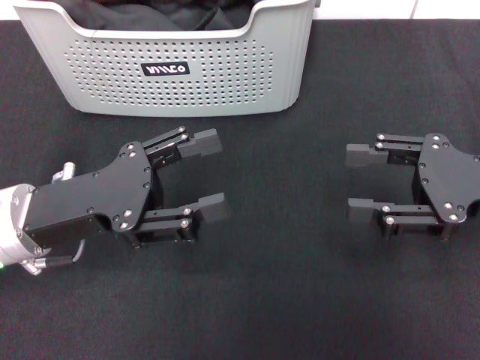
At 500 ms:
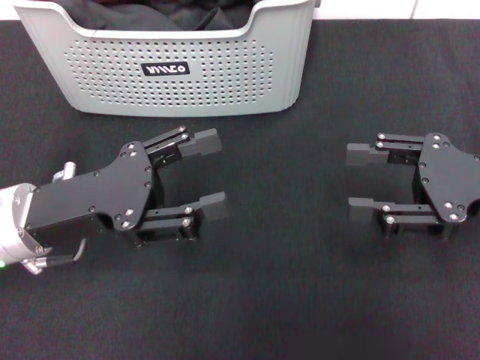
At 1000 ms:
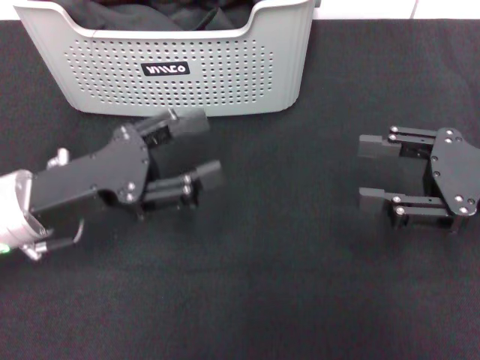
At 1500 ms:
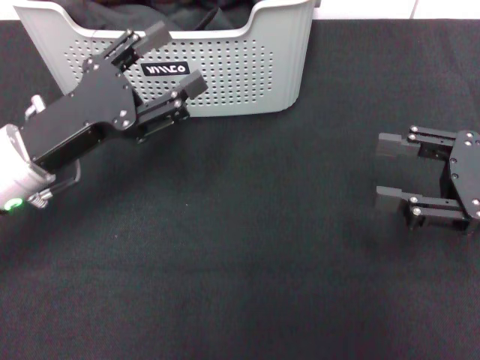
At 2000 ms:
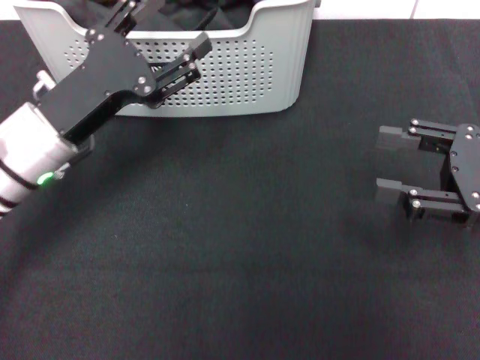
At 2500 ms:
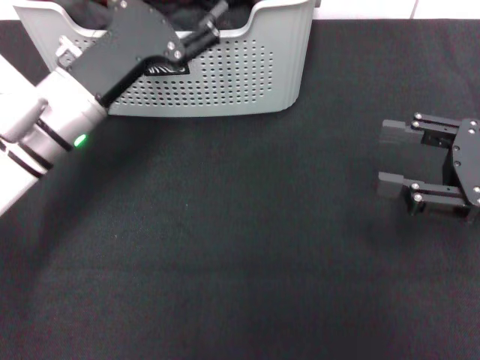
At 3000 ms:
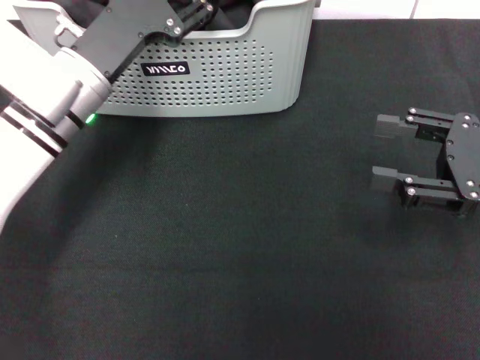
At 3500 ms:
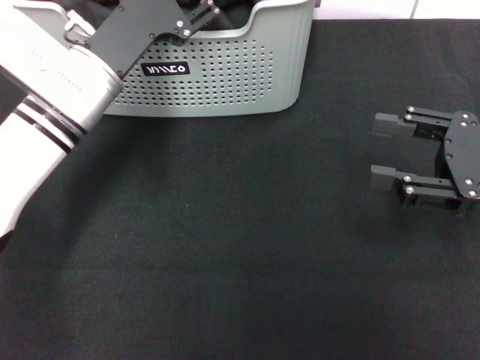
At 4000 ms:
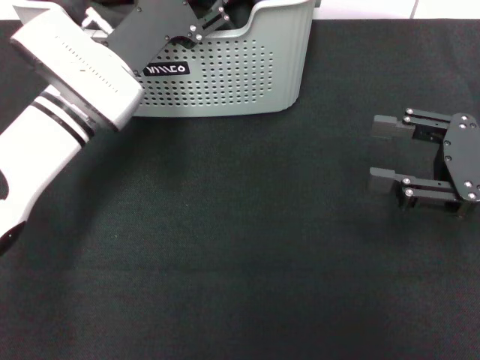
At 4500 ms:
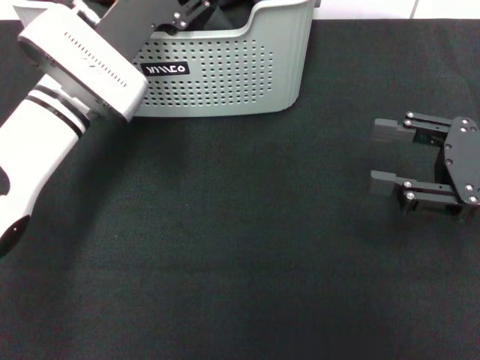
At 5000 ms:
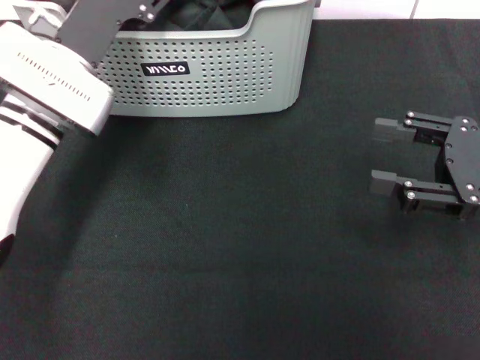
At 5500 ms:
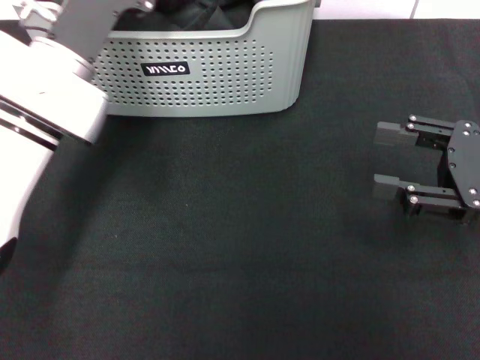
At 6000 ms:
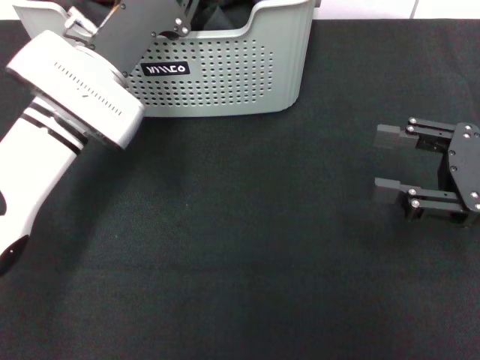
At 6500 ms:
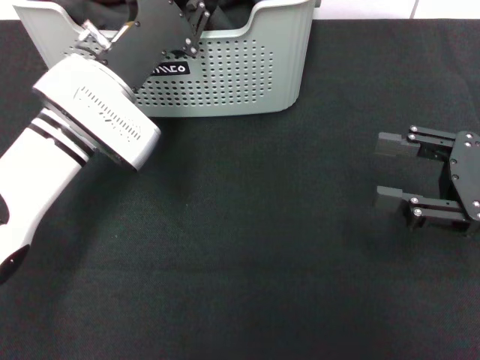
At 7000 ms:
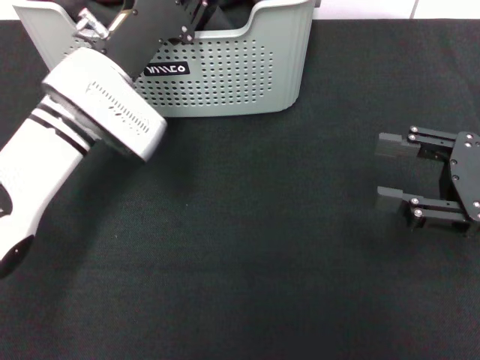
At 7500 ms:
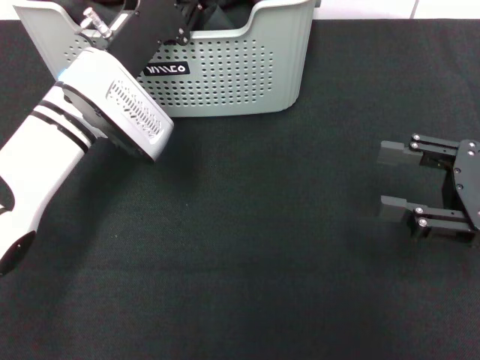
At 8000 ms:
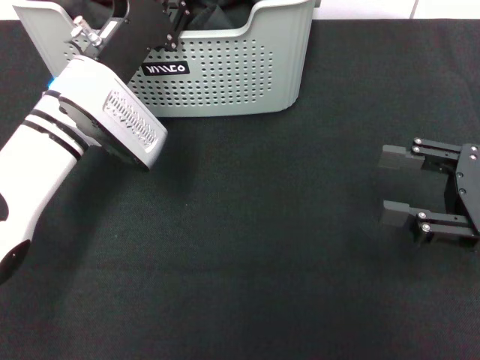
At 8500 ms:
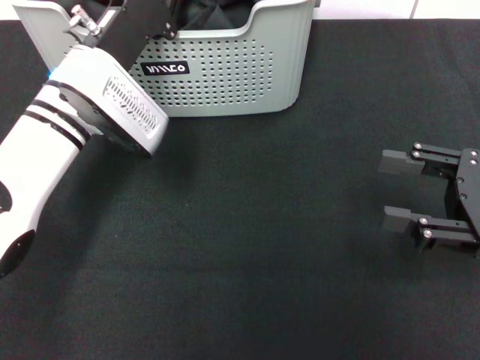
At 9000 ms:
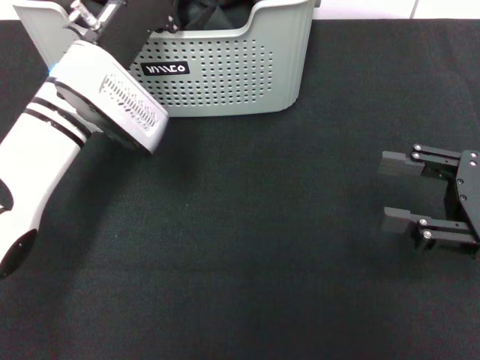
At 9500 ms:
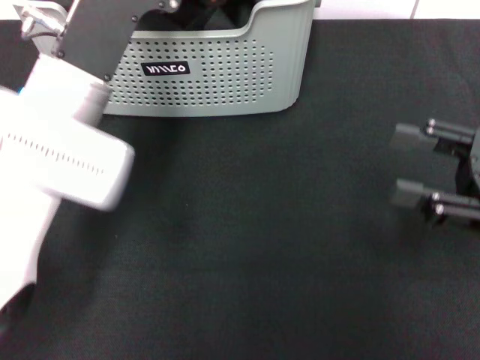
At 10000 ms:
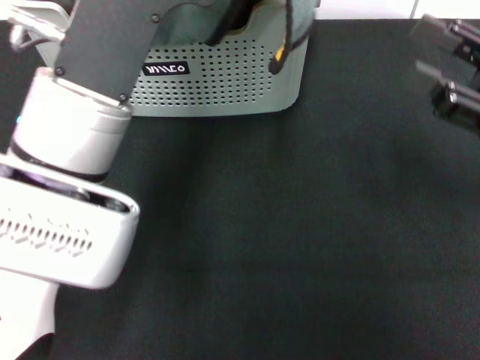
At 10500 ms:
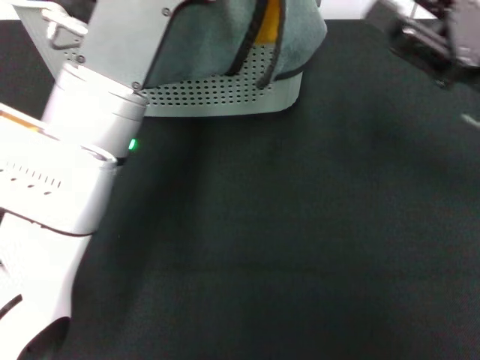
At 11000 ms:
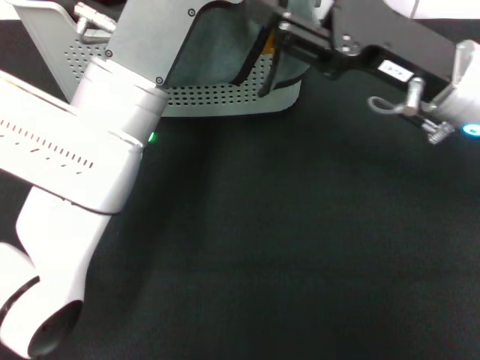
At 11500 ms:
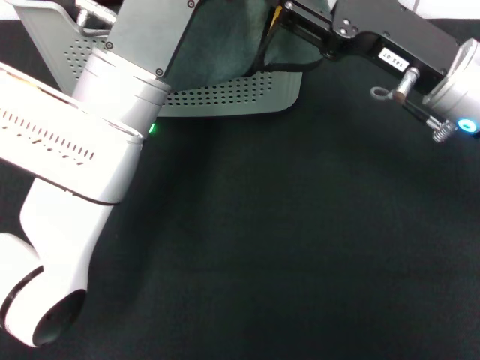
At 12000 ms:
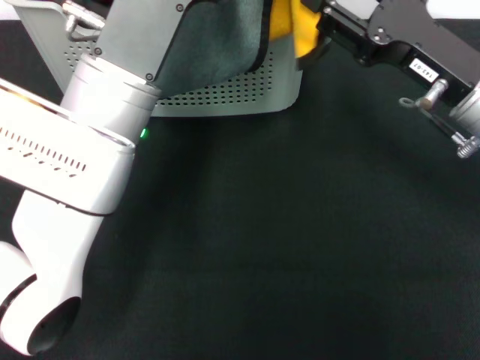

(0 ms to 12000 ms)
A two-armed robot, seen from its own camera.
Task of the whole recording: pick up the towel from the storage box and lay it flat on the black tablecloth.
Step, 0 ms - 9000 ms: Pick up a towel with the left gripper.
0 ms - 2000 ms: The left gripper moves forward, approximately 5 cm.
2000 ms - 4000 ms: The left gripper travels forward by some 5 cm.
4000 ms - 6000 ms: The left gripper closes.
8000 ms - 10000 ms: The left gripper travels backward, upward and to the right by roughly 15 cm, and closes up.
10000 ms - 12000 ms: The right gripper moves to the left, approximately 10 cm.

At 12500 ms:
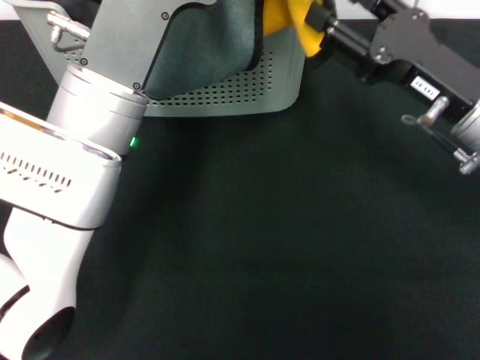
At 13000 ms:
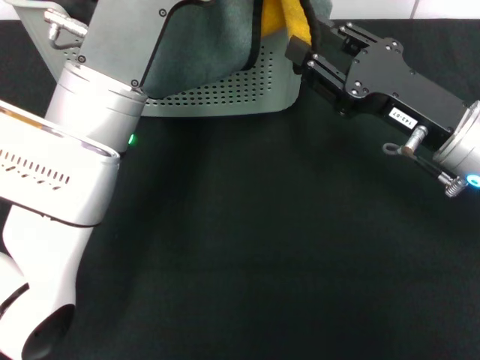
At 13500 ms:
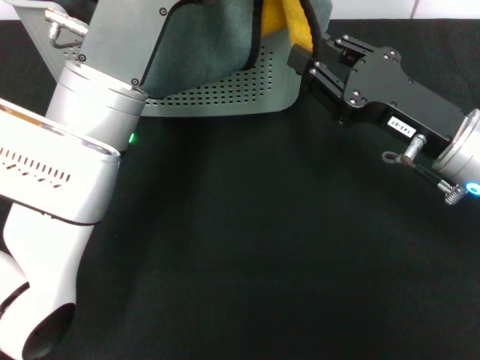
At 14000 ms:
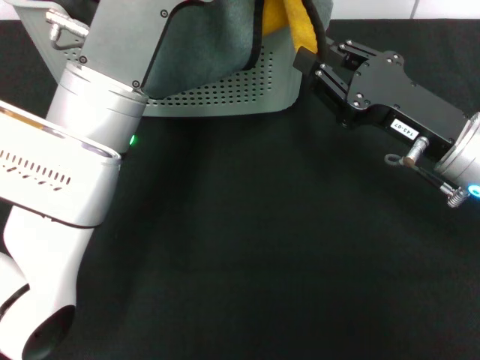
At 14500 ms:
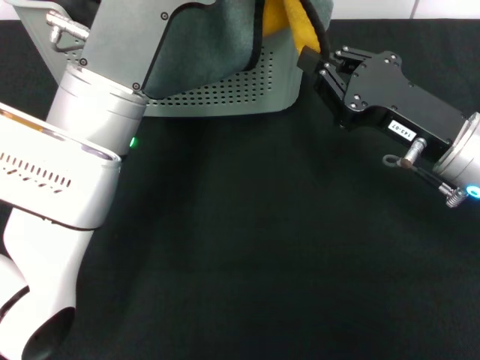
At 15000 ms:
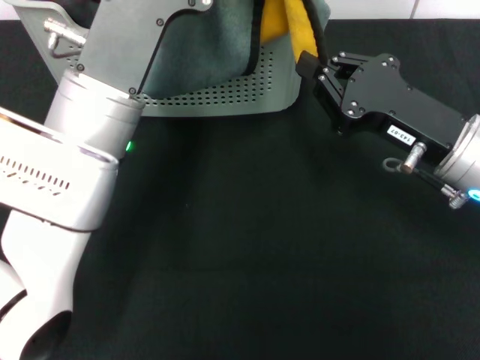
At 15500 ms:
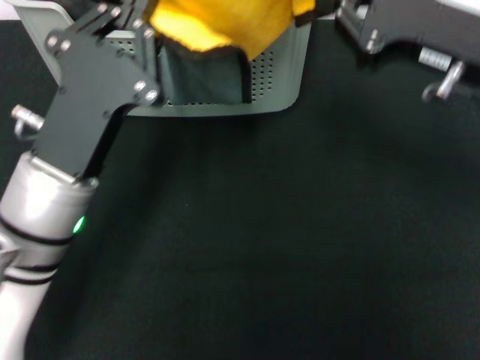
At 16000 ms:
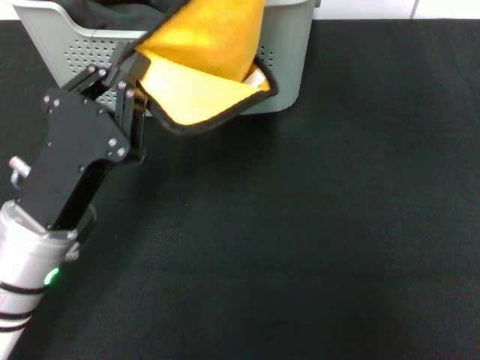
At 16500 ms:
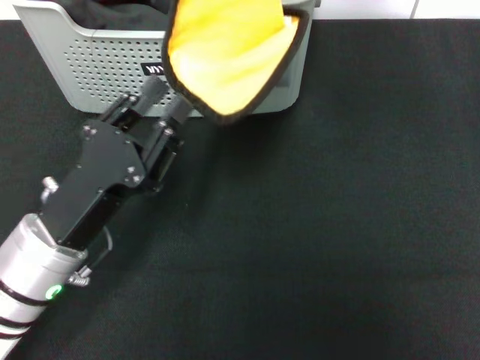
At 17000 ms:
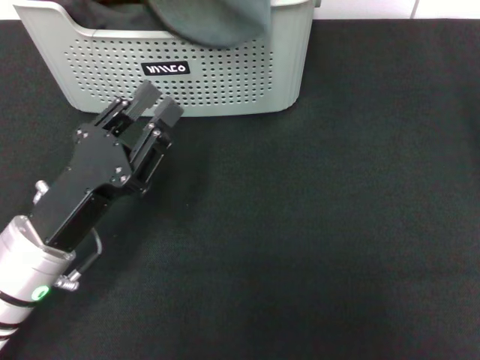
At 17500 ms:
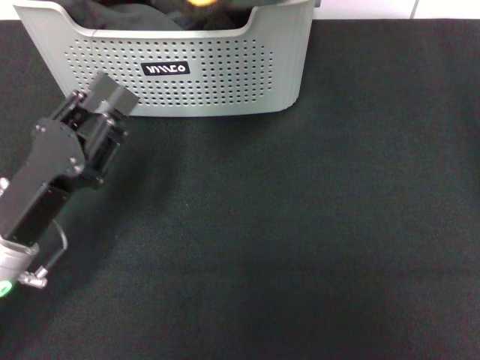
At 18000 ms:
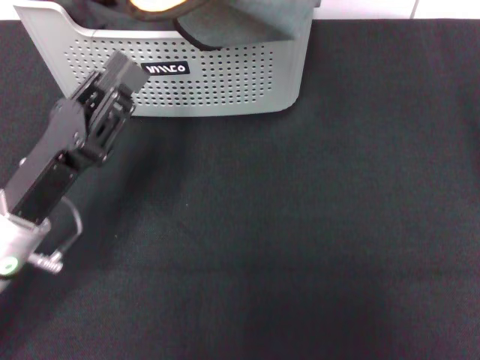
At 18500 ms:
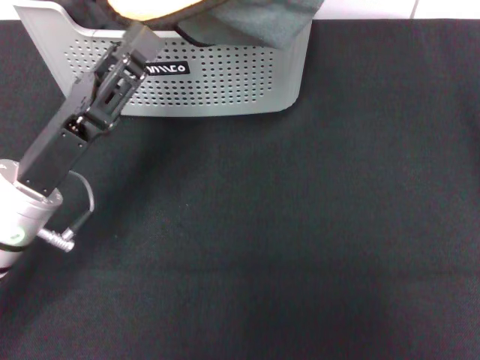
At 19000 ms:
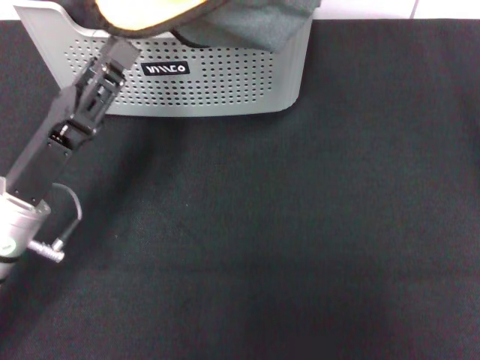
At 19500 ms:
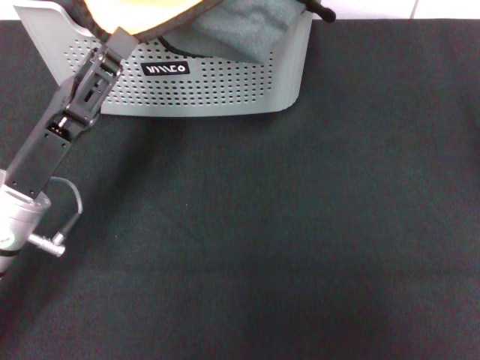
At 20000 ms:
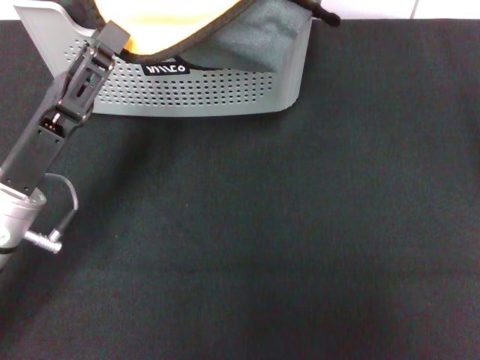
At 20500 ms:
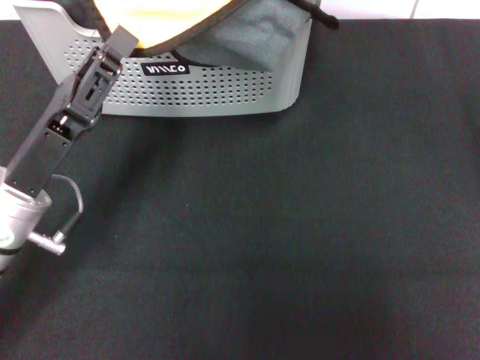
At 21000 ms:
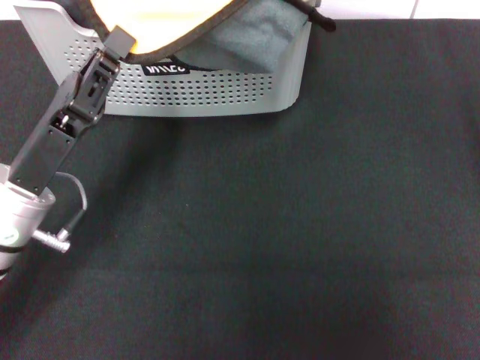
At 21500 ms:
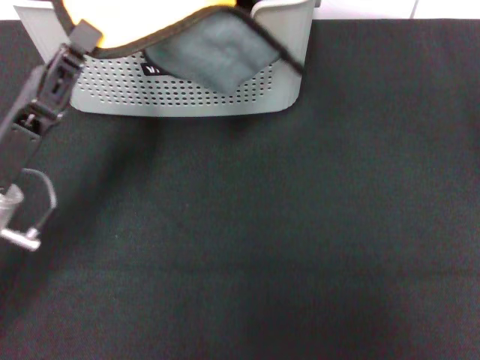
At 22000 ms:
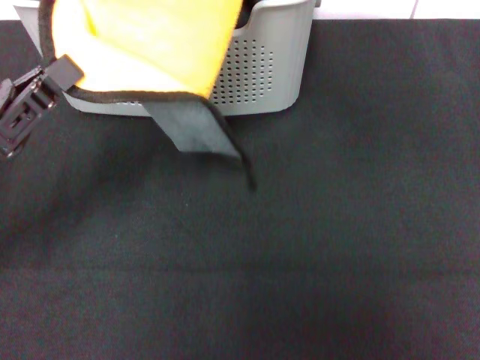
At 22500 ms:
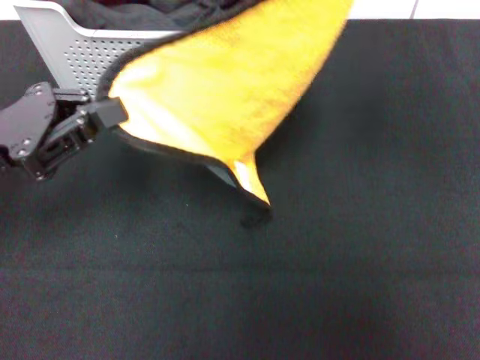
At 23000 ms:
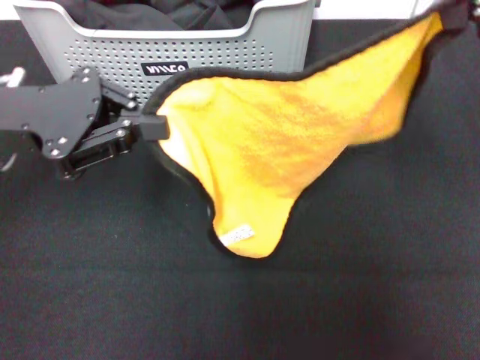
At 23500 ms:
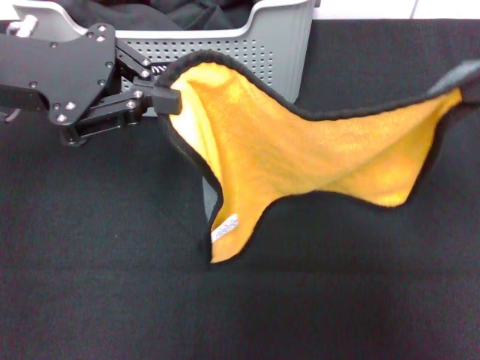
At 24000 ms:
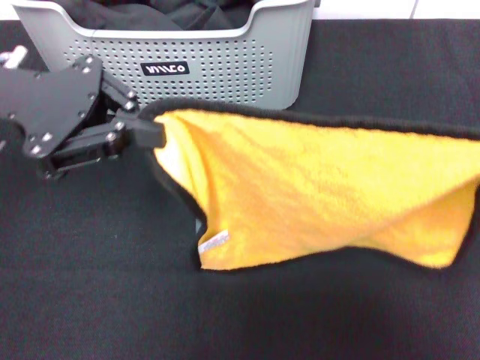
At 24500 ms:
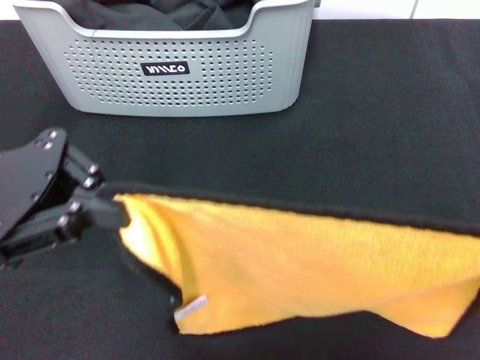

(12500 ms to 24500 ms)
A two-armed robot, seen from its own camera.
Task of the whole recording: pick up the towel from the storage box and lay it flat on the black tablecloth.
Step, 12500 ms - 15000 ms: Spread the towel flat with the left gripper.
12500 ms - 14500 ms: The right gripper closes up.
14500 ms - 16500 ms: The right gripper heads upward, covering roughly 25 cm. Meanwhile the left gripper heads downward, to the left and backward, covering about 15 cm, and opens up.
16500 ms - 18500 ms: The right gripper travels upward by roughly 10 cm.
18500 ms - 20500 ms: There are only small adjustments of the grippers.
20500 ms - 22500 ms: The right gripper shifts roughly 15 cm to the right and downward. The left gripper travels to the left and upward by approximately 10 cm, and closes.
22500 ms - 24500 ms: The left gripper goes forward and returns, some 5 cm each way, while the right gripper moves backward, to the right and downward, some 15 cm.

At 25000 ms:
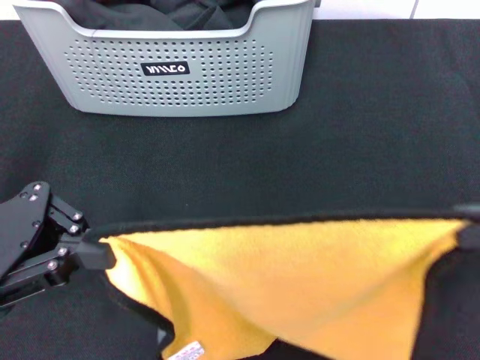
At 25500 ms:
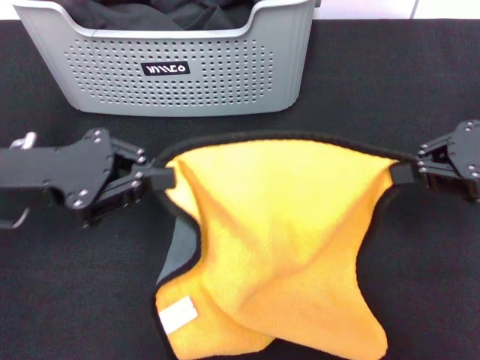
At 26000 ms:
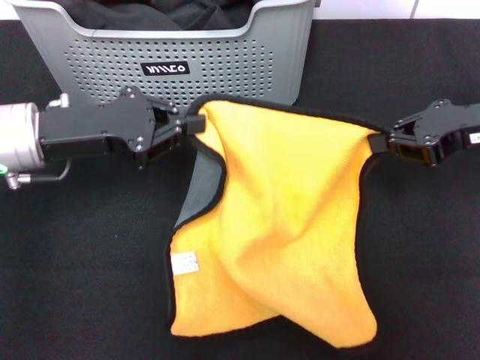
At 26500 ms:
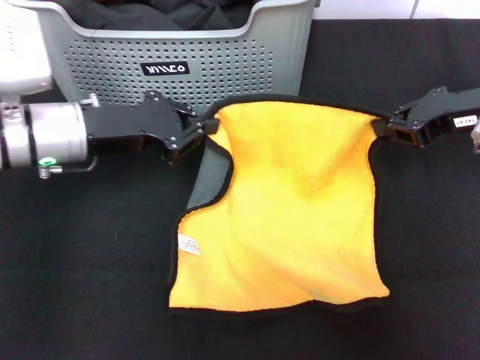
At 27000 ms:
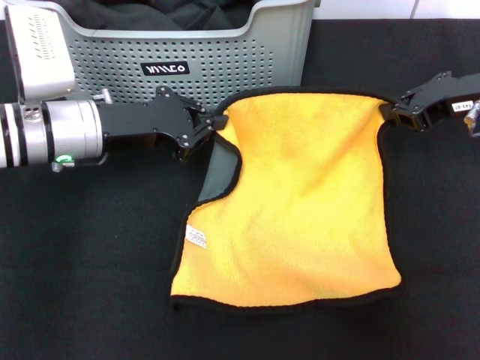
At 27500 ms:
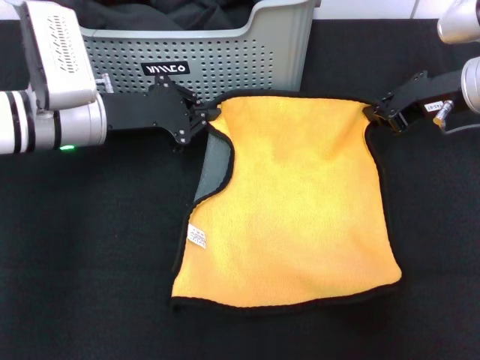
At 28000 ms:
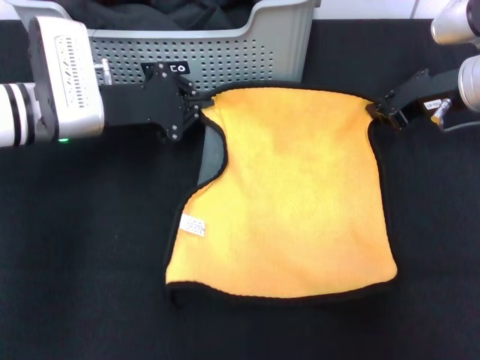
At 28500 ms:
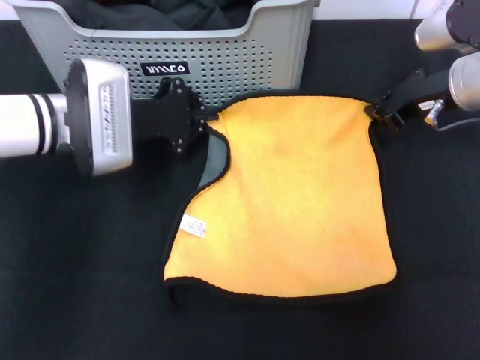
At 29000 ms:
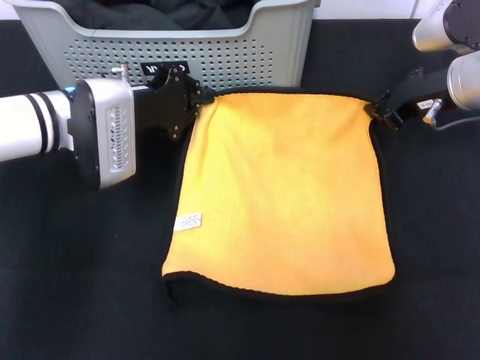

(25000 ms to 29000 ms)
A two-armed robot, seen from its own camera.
Task of the whole recording: pick up the towel from the storage box and lay it flat on the black tablecloth.
25000 ms - 27000 ms: The left gripper is displaced forward and to the right by roughly 15 cm; the right gripper is displaced forward and downward by roughly 20 cm.
27000 ms - 29000 ms: The right gripper shifts by some 5 cm.
